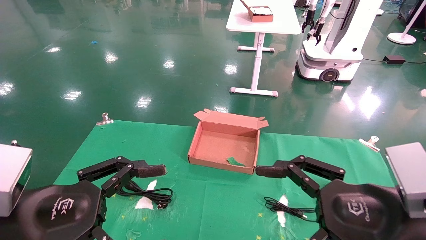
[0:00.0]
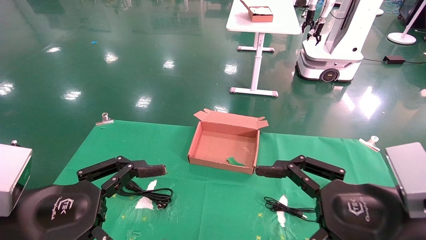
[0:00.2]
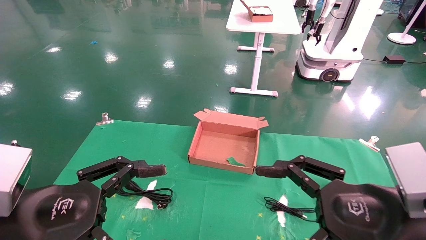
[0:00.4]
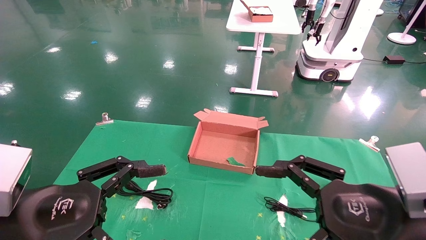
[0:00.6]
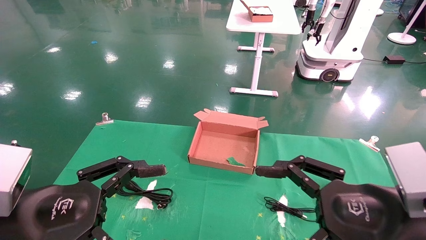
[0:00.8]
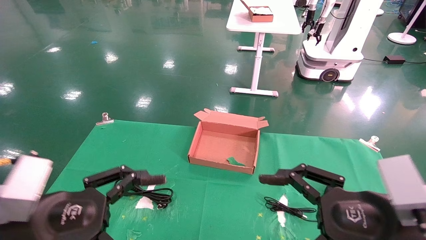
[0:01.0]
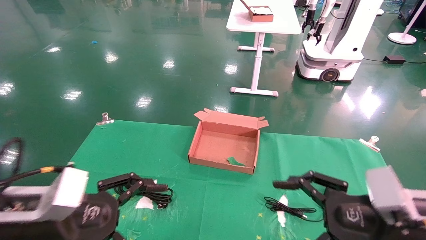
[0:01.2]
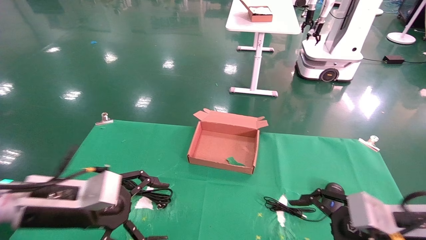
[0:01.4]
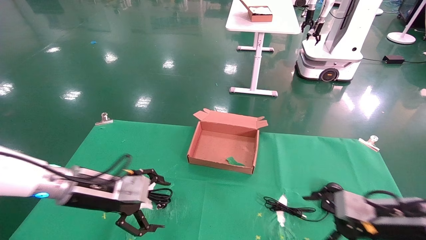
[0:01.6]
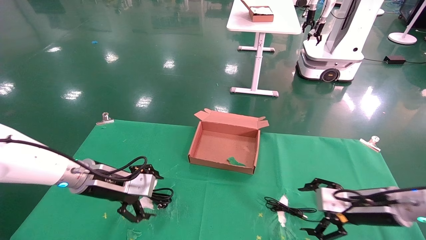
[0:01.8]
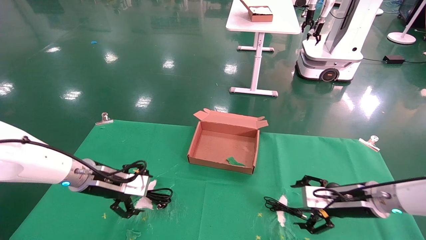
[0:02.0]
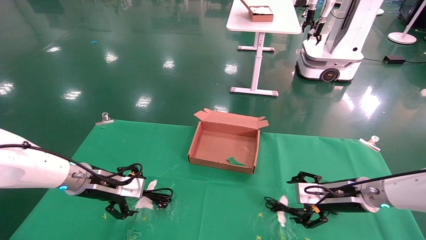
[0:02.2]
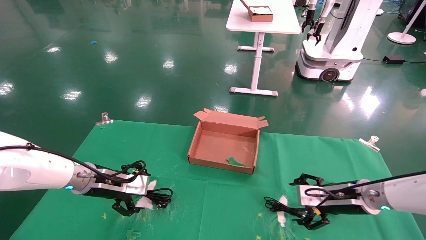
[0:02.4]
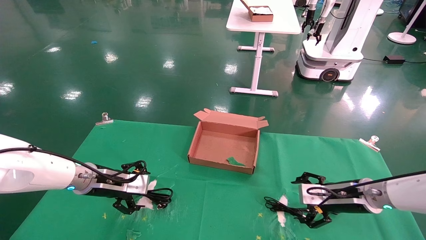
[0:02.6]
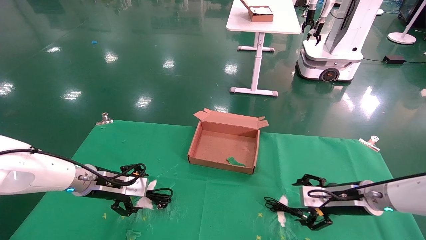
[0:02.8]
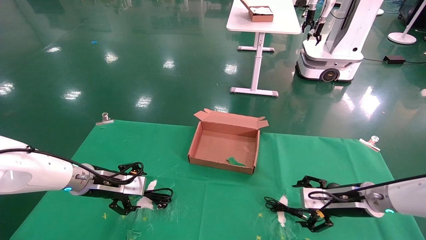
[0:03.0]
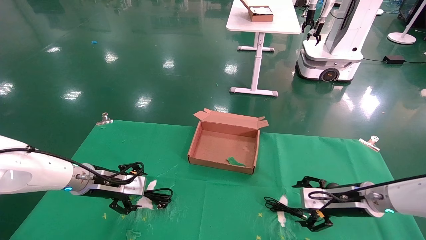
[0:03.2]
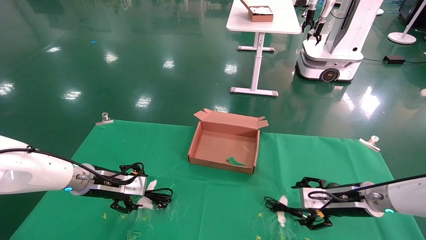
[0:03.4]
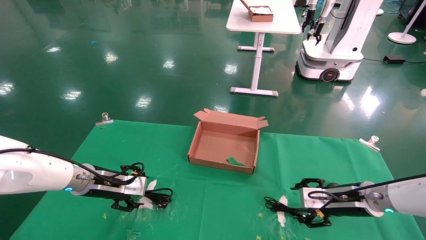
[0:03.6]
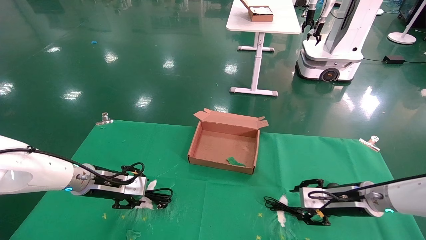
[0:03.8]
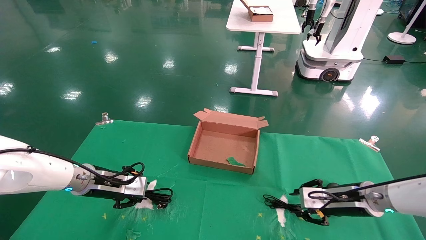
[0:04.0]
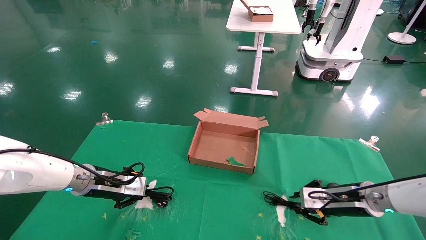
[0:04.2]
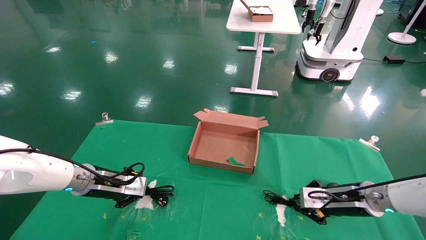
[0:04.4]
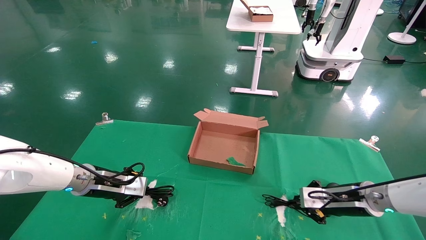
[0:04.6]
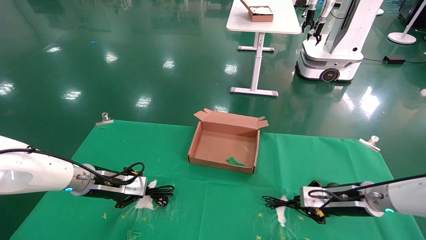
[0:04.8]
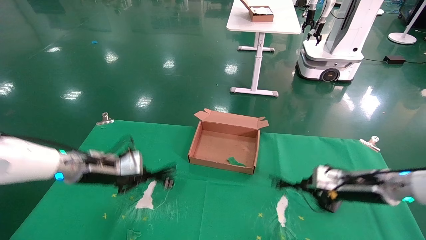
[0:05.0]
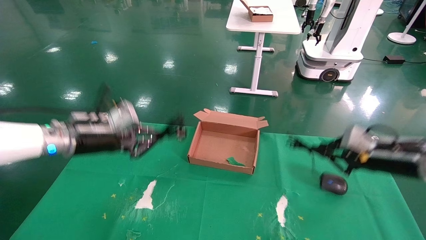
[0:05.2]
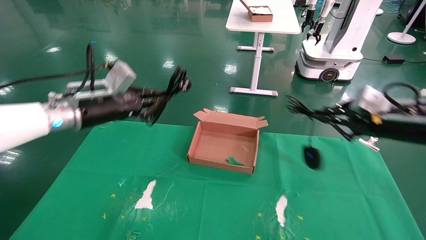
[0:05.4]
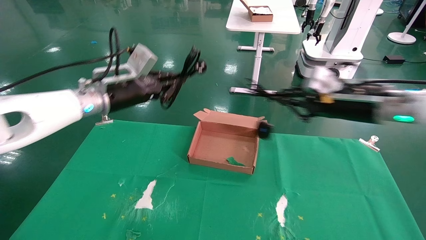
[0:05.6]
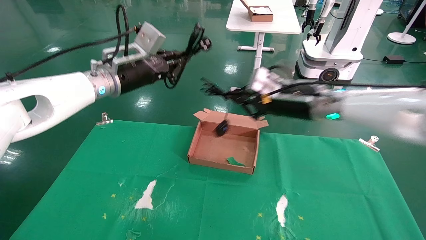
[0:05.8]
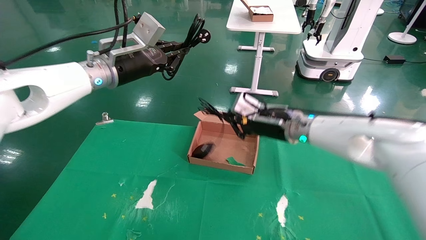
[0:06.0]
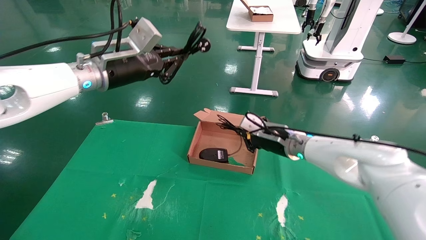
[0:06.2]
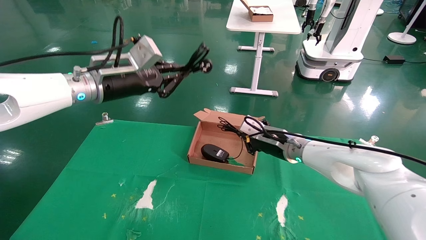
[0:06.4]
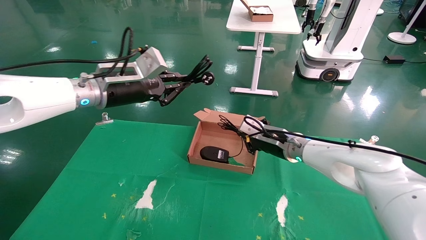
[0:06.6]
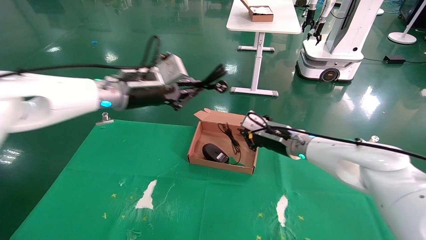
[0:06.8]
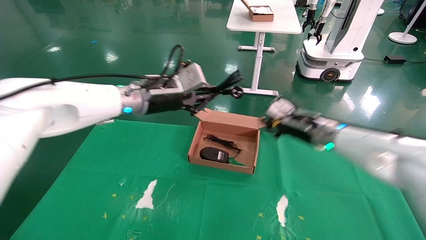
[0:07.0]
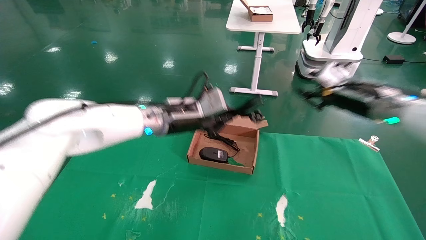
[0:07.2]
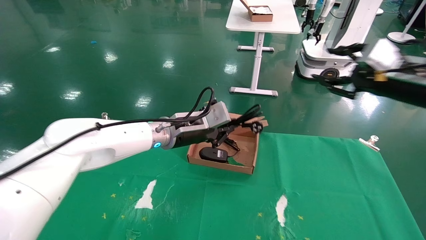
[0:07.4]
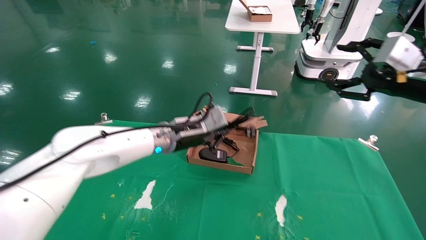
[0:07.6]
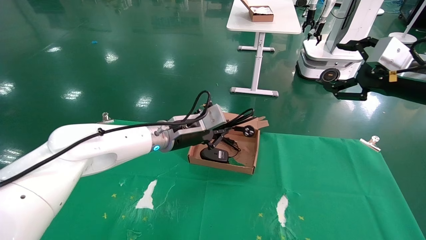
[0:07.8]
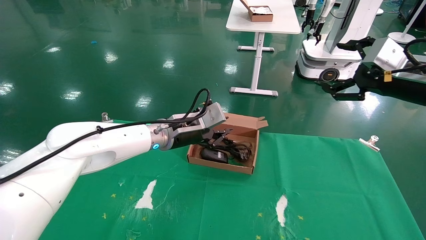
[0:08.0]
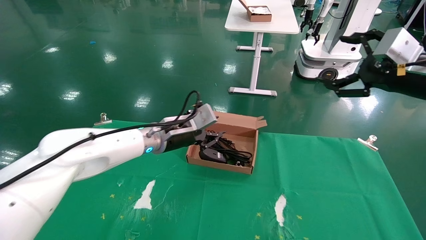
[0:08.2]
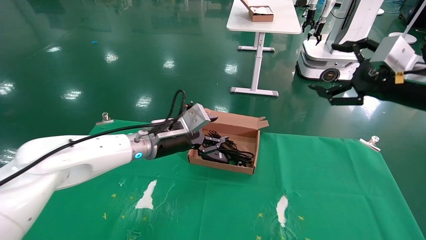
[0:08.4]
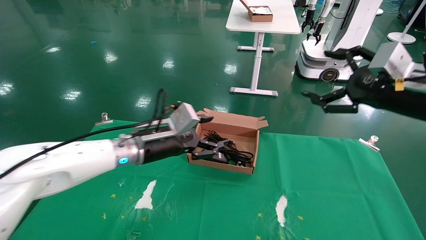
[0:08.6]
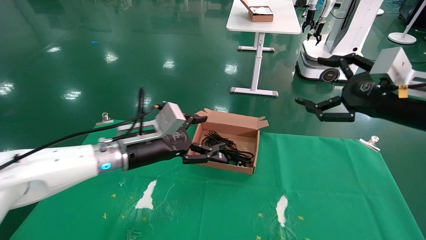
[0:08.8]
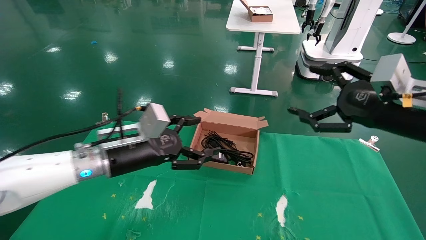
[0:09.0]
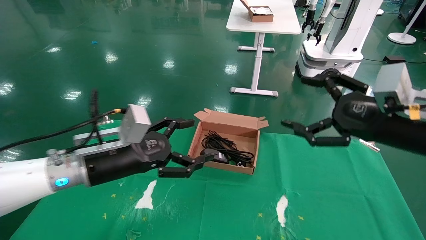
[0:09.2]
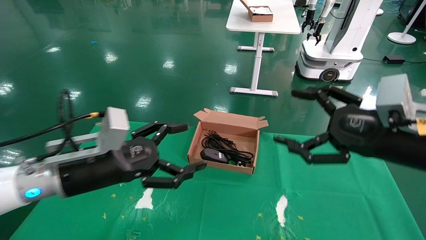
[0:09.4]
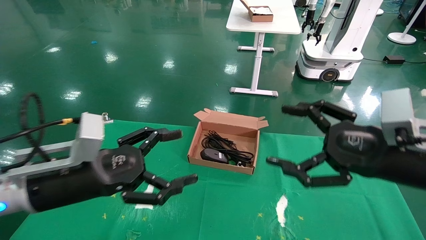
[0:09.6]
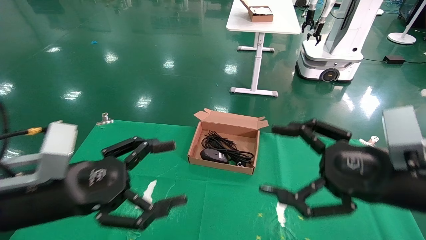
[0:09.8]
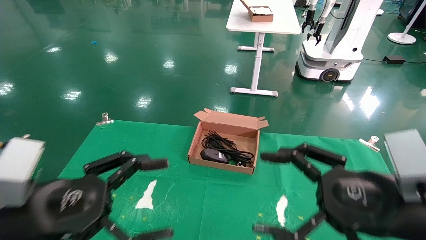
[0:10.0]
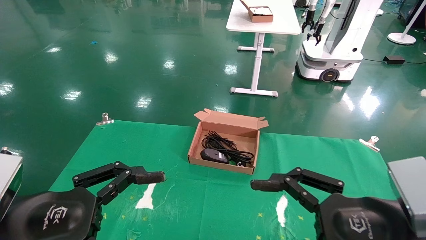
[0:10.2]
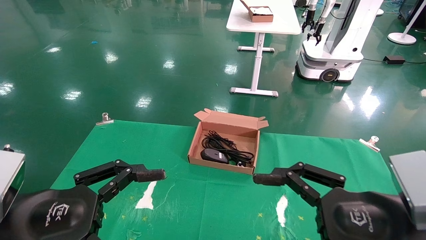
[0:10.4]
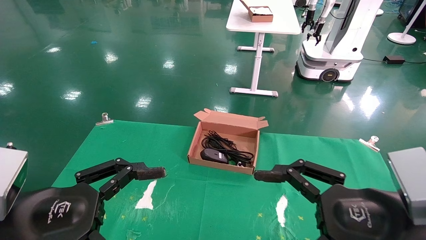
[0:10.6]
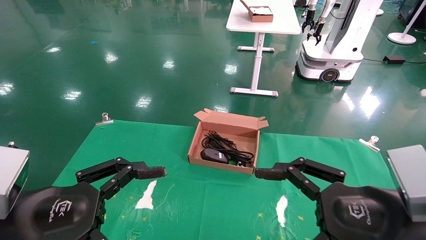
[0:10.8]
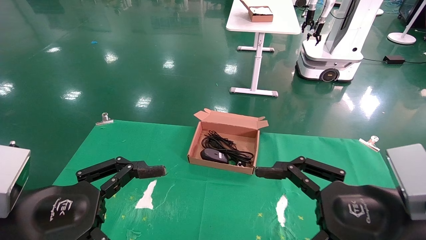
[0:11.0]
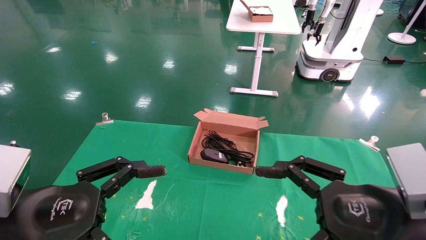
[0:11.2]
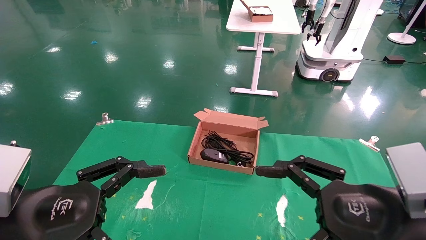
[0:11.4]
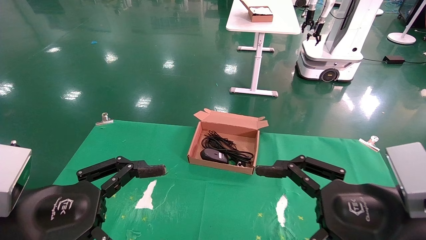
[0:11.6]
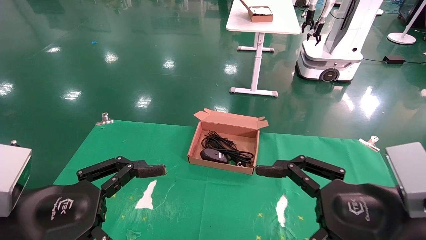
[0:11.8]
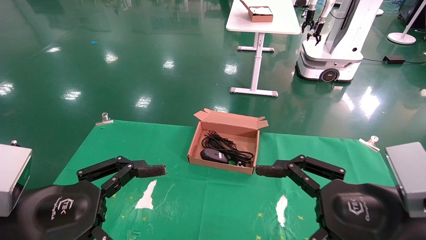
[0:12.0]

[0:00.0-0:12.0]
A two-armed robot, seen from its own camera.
Step, 0:01.0 to 0:05.6: Grab and lift both the mouse and power cord from the accessory packaging area at the same time.
Step, 0:05.8 to 0:10.4: Place the mouse and power cord into the box.
0:00.0 to 0:01.6: The right gripper goes about 20 cm forward, downward and to the right. The left gripper is displaced forward by approximately 15 cm.
0:01.6 to 0:03.0: Both grippers move forward, approximately 10 cm.
0:03.0 to 0:04.4: The right gripper closes, while the left gripper closes.
0:04.4 to 0:06.0: The right gripper travels to the left, upward and forward by some 20 cm. Meanwhile the left gripper is displaced upward by approximately 25 cm.
0:06.0 to 0:07.6: The left gripper travels downward and to the right by some 20 cm, while the right gripper shifts approximately 25 cm to the right, backward and upward, and opens.
0:07.6 to 0:09.0: The right gripper heads to the left, covering approximately 5 cm, and opens its fingers; the left gripper goes some 15 cm backward and to the left, and opens.
0:09.0 to 0:10.4: The right gripper shifts roughly 15 cm backward, downward and to the left. Meanwhile the left gripper goes approximately 20 cm backward and to the left.
0:10.4 to 0:12.0: Both grippers stay about where they are.

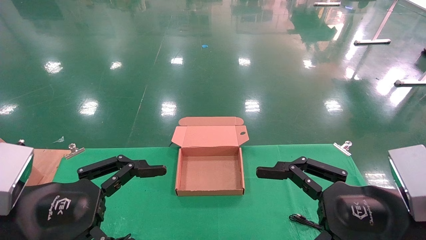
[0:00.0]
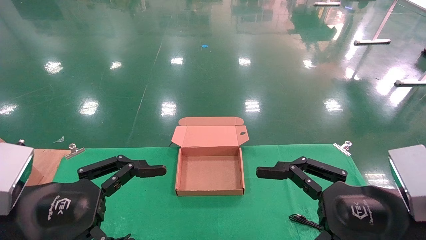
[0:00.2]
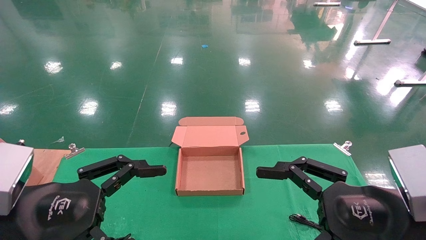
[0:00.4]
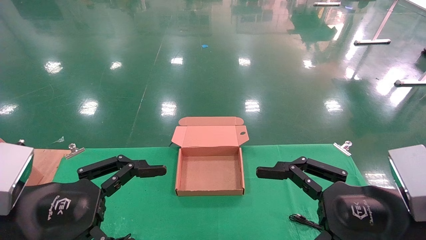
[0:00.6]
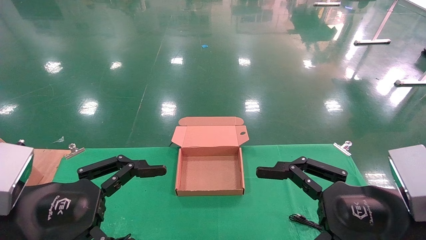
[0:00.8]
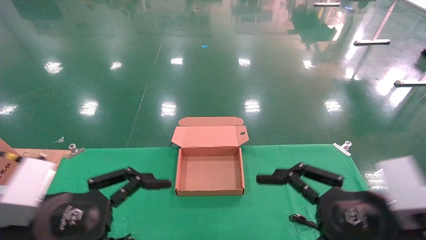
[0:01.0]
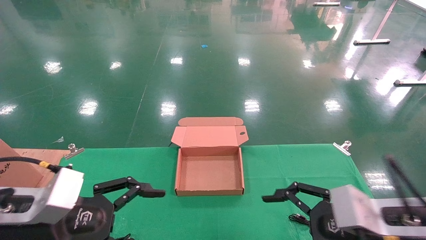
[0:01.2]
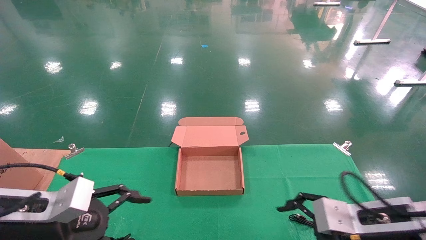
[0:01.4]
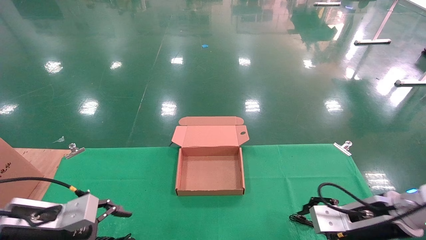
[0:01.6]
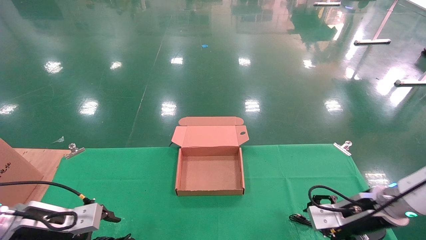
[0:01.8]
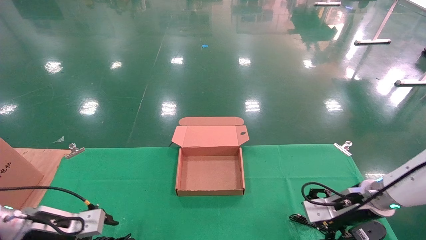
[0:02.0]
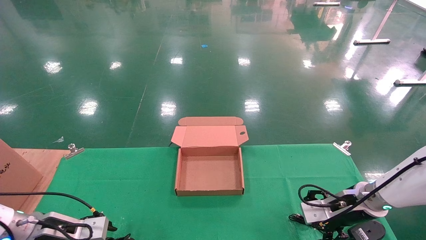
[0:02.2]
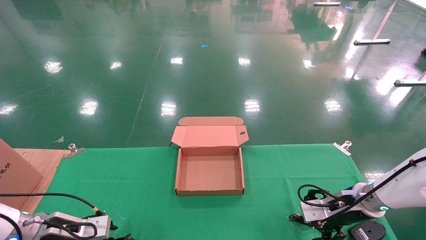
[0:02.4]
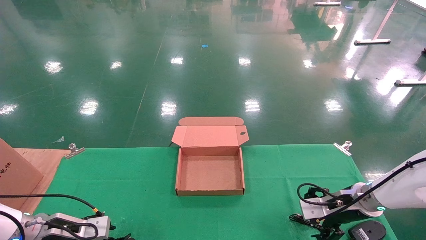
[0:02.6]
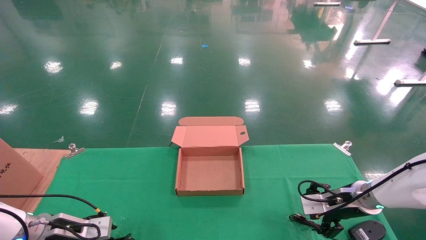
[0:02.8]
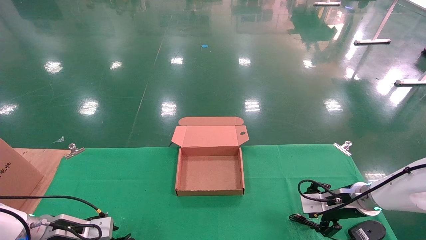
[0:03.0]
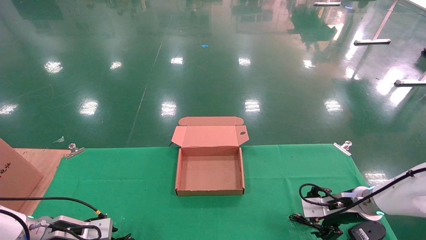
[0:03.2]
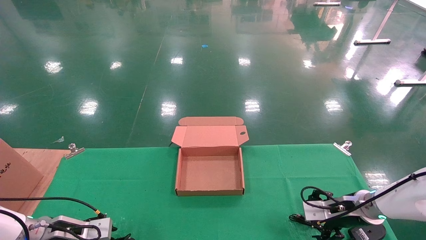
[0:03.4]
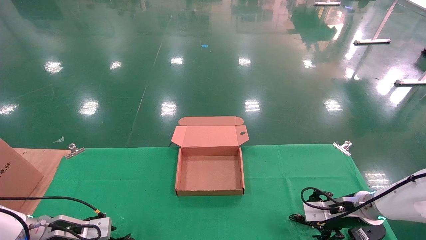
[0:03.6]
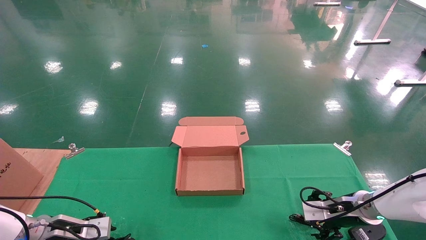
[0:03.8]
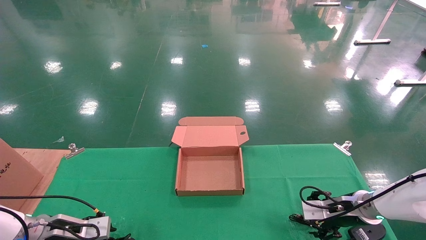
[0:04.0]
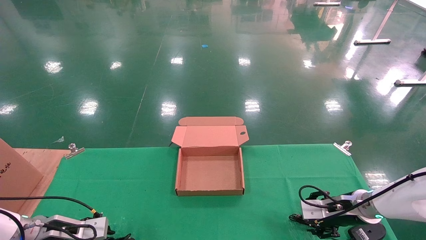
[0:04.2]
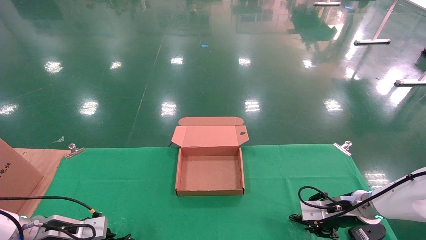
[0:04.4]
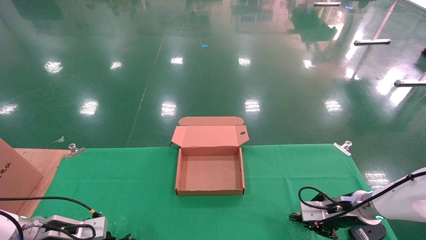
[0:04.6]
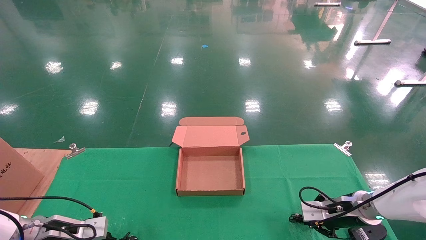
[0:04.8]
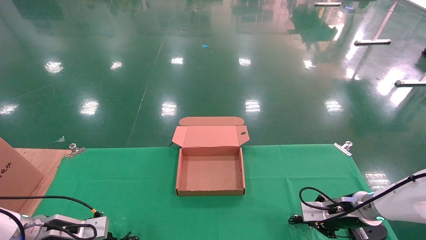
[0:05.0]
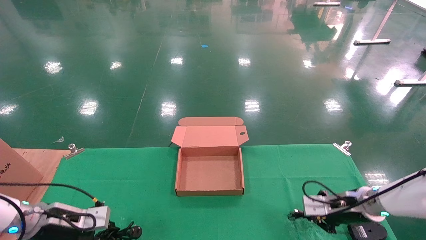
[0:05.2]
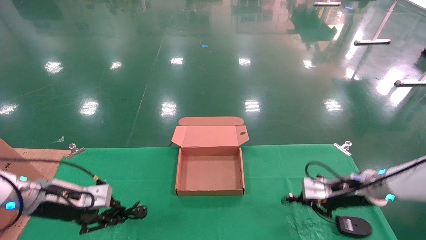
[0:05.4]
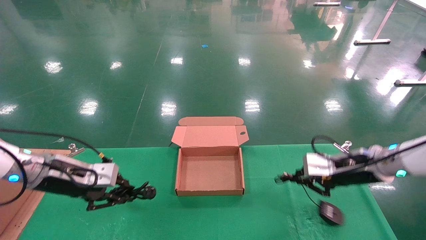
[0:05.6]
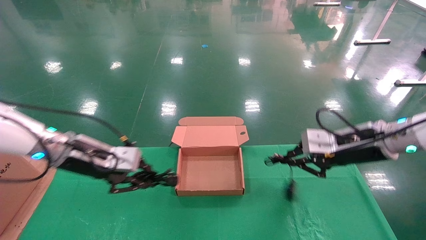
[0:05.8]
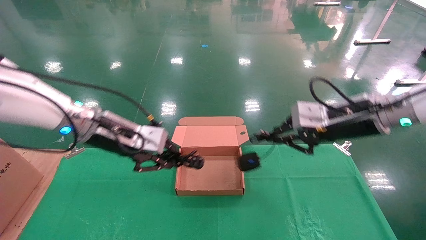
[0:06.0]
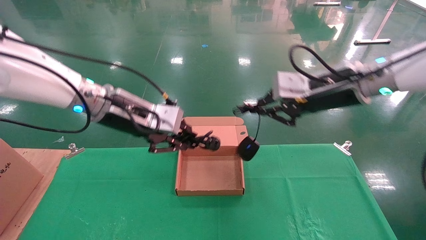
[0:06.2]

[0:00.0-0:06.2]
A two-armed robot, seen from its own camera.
Step, 0:01.8 to 0:05.8: Grab and lift both the mouse and power cord from the accessory packaging area at the same time.
0:00.0 to 0:01.6: The right gripper shifts roughly 15 cm forward and downward, while the left gripper goes roughly 15 cm forward, downward and to the left.
0:01.6 to 0:03.2: The right gripper is displaced forward and downward by about 10 cm, while the left gripper is displaced downward and forward by about 15 cm.
0:03.2 to 0:04.6: The left gripper closes. The right gripper closes its fingers.
0:04.6 to 0:06.2: The right gripper shifts roughly 25 cm upward, and closes its fingers. Meanwhile the left gripper travels upward and to the right by roughly 35 cm.
